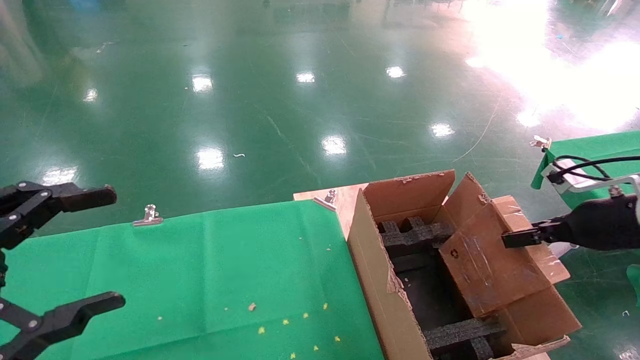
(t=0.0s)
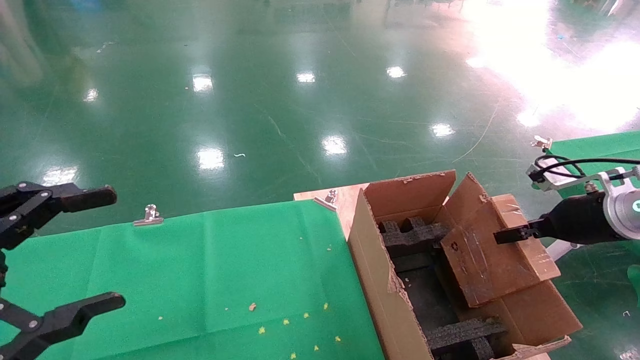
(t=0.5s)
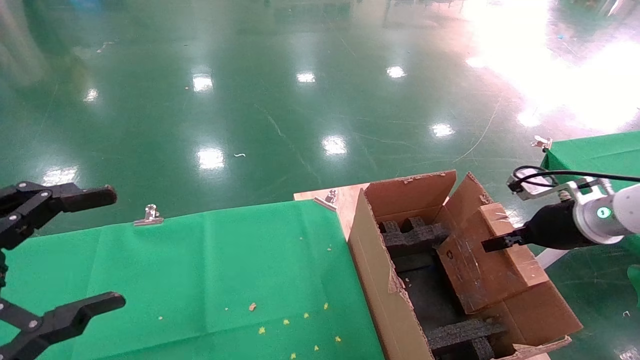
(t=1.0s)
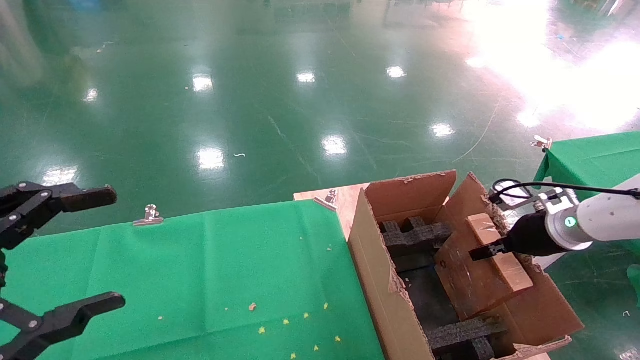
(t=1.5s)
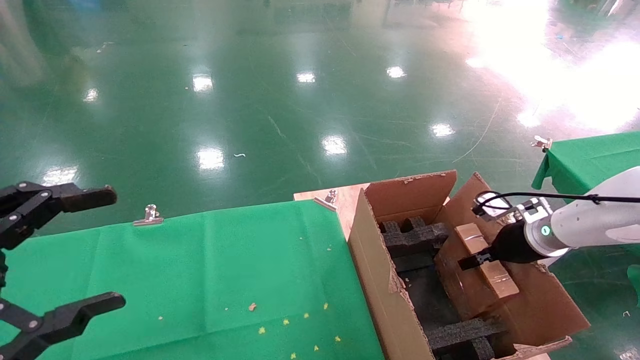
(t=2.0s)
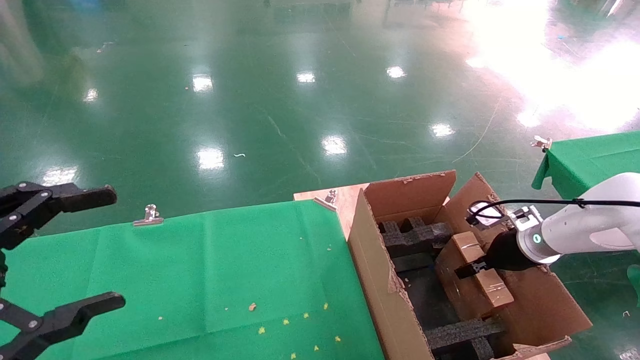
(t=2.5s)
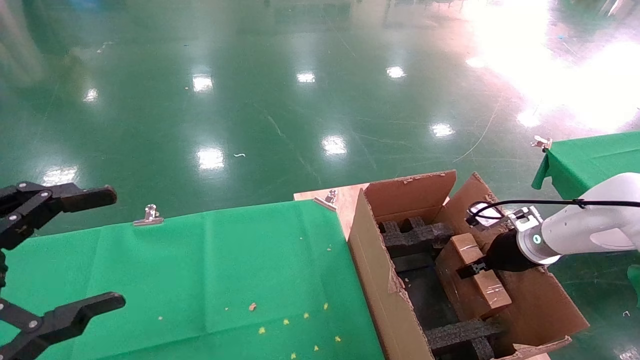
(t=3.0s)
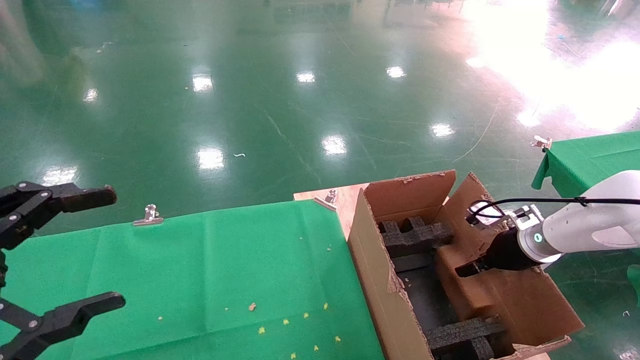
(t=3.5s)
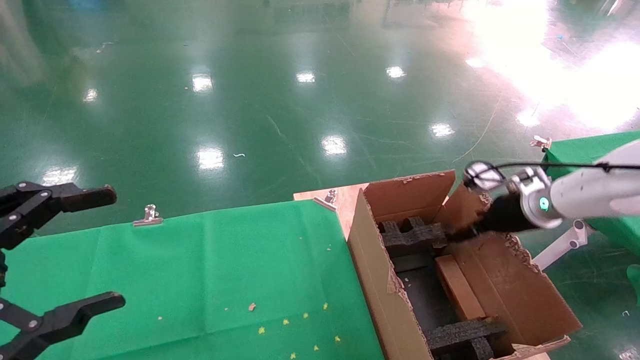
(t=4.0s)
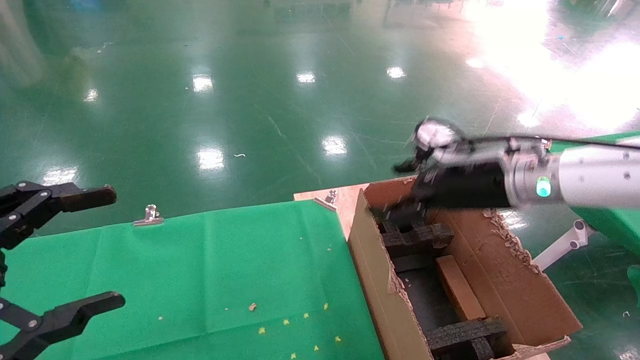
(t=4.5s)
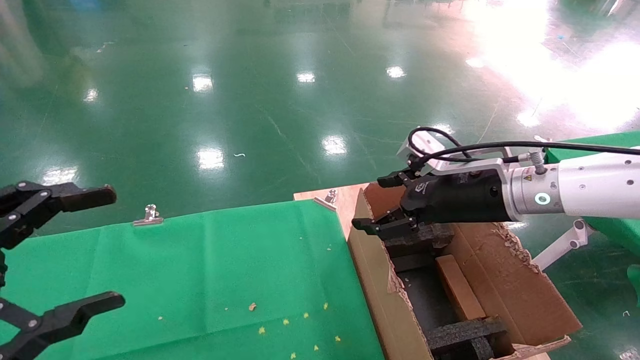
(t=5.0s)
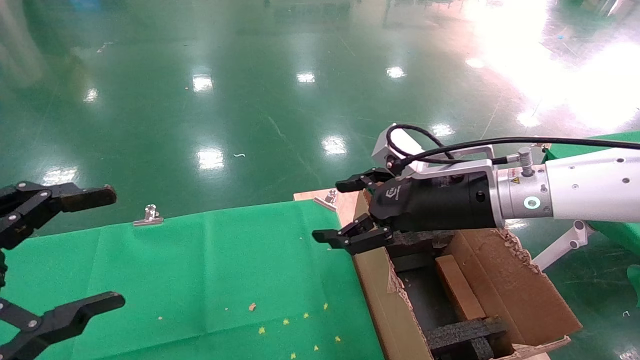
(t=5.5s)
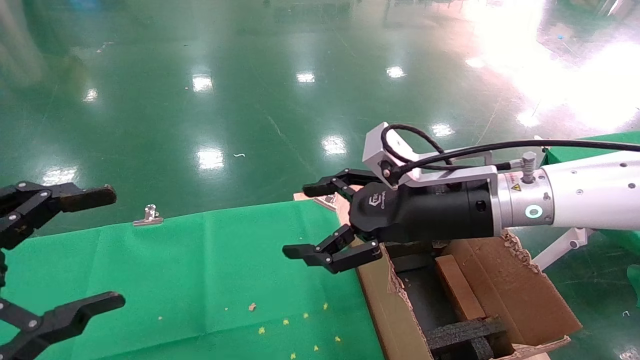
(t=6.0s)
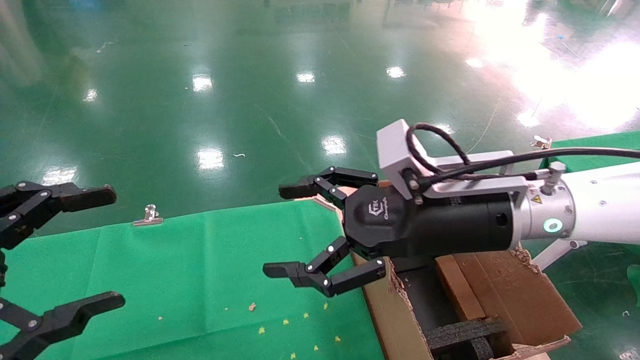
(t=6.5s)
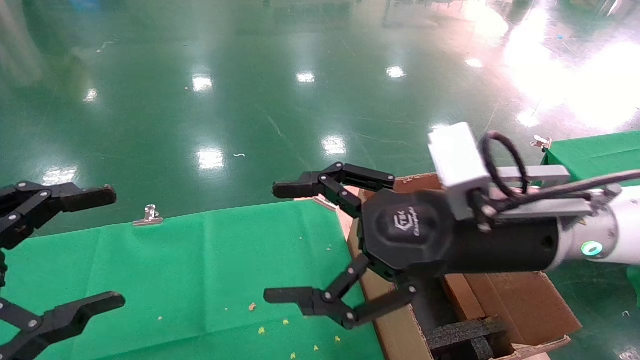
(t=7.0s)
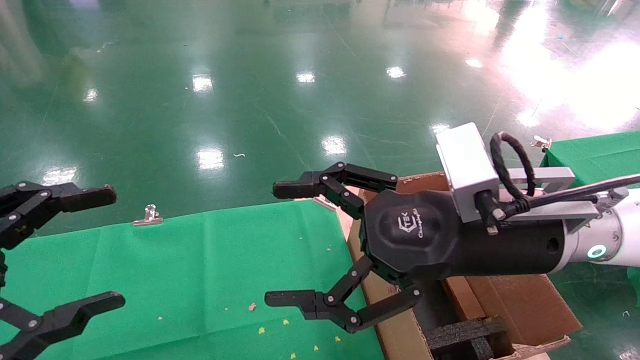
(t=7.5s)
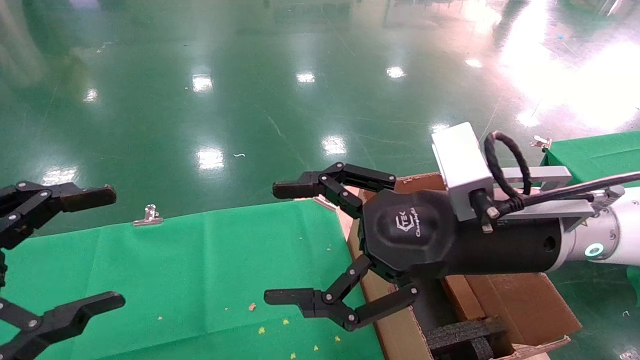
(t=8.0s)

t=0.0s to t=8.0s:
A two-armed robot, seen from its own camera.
Task of the whole recording: using a robotic arm to pick up a cardboard box and palace it the carton.
Step, t=0.0s to t=4.5s: Place the mouse and the power cord paper box into the container.
t=0.0s to t=2.0s: The right gripper travels forward and downward by approximately 15 cm.
t=2.0s to t=4.0s: The right gripper moves upward, approximately 5 cm, and opens.
t=4.0s to t=6.0s: The right gripper goes roughly 25 cm to the left and backward.
t=6.0s to t=8.0s: The right gripper is displaced backward by roughly 5 cm.
